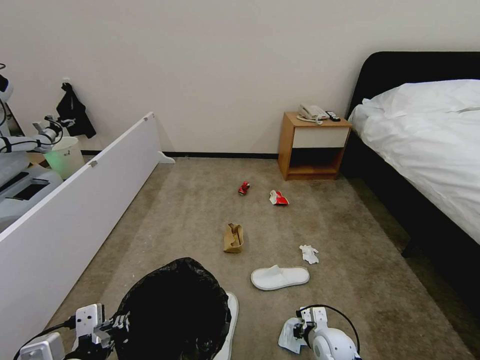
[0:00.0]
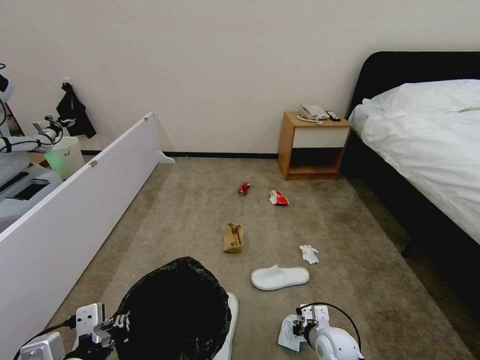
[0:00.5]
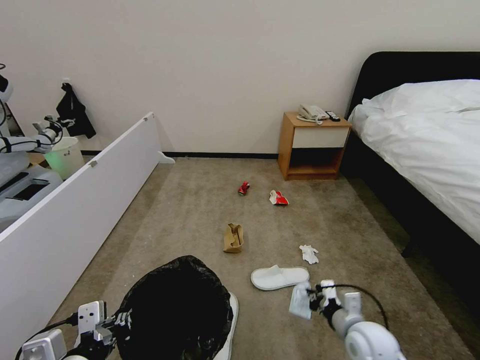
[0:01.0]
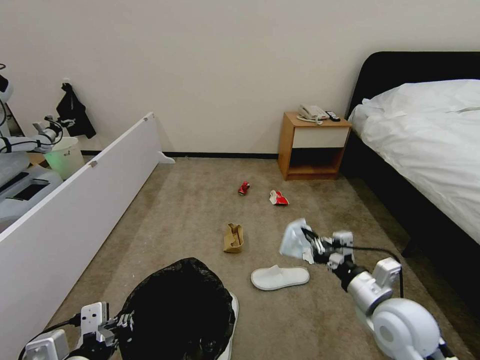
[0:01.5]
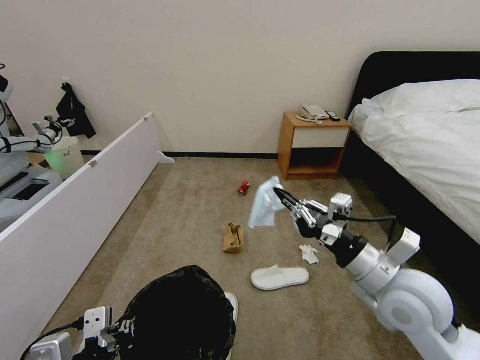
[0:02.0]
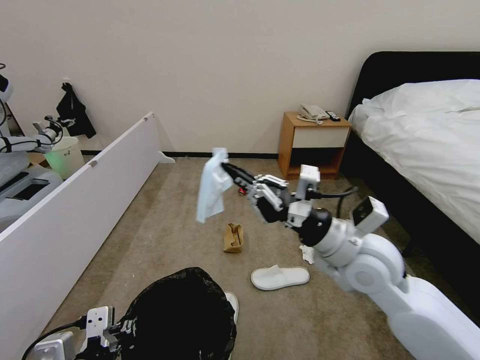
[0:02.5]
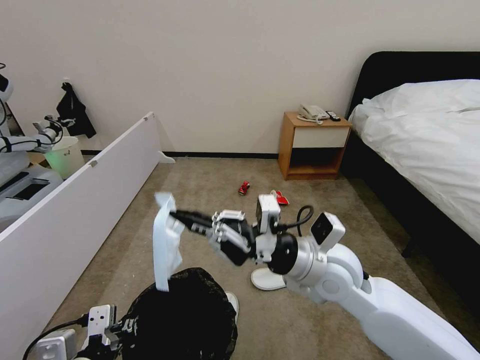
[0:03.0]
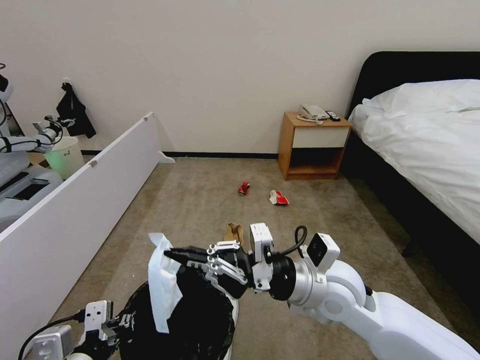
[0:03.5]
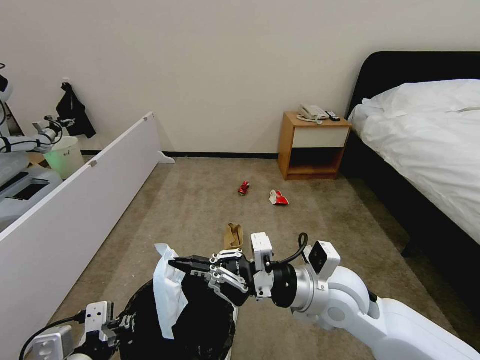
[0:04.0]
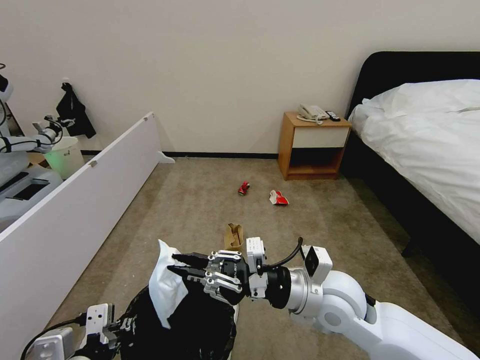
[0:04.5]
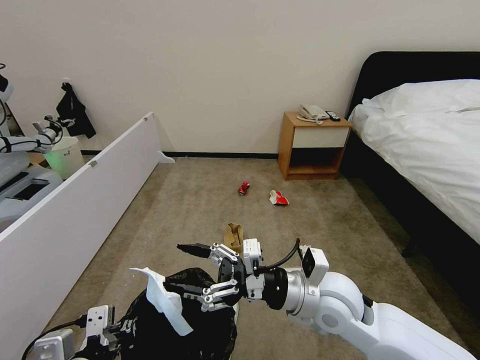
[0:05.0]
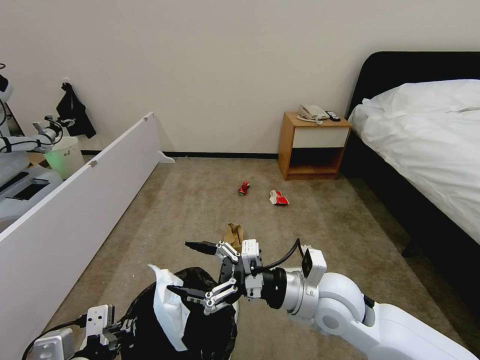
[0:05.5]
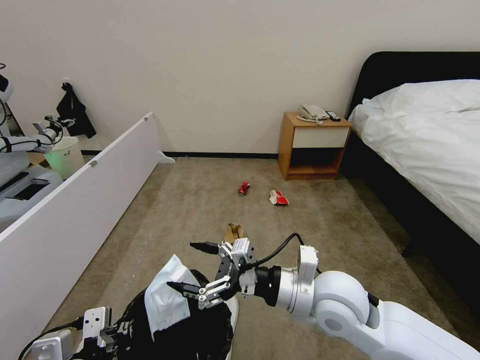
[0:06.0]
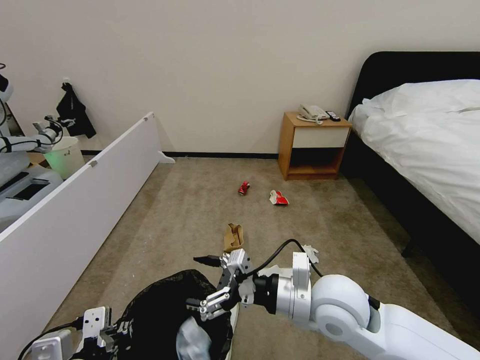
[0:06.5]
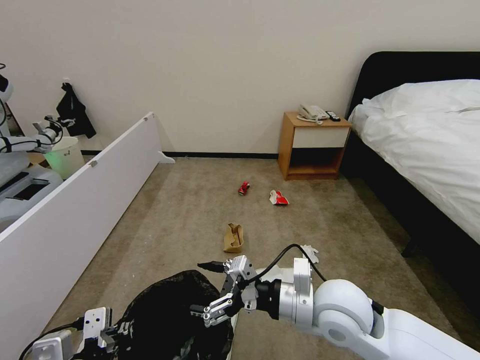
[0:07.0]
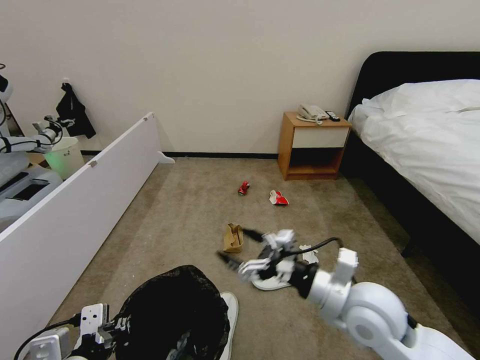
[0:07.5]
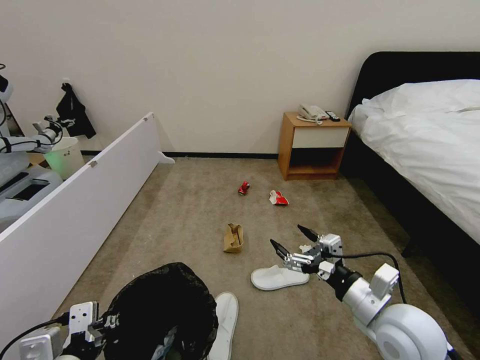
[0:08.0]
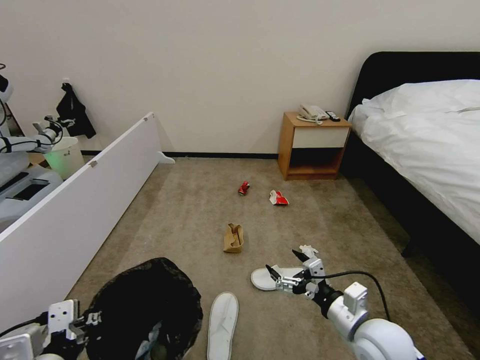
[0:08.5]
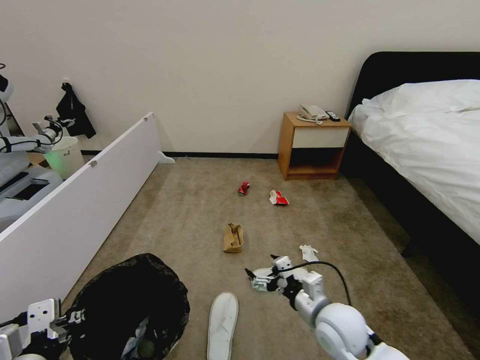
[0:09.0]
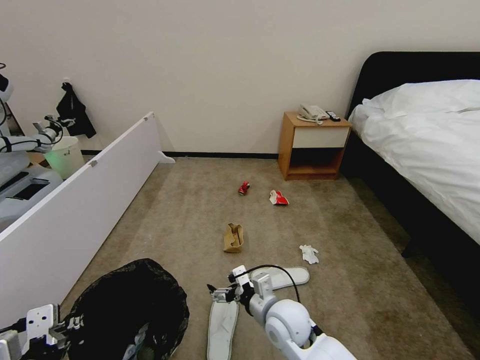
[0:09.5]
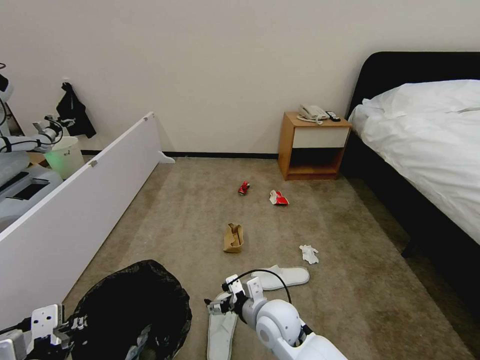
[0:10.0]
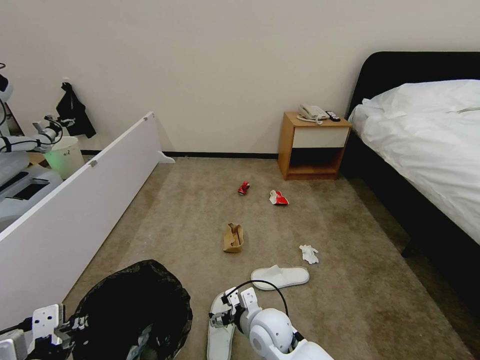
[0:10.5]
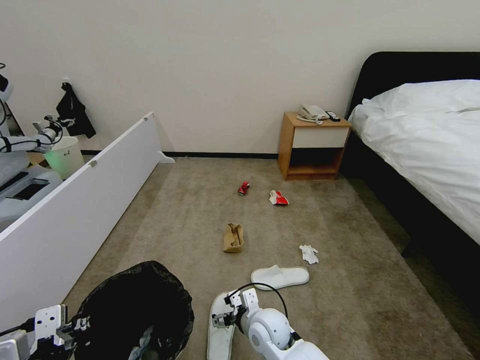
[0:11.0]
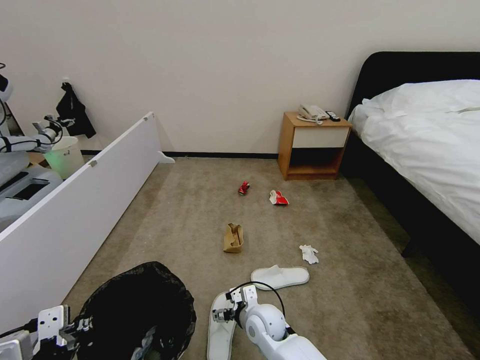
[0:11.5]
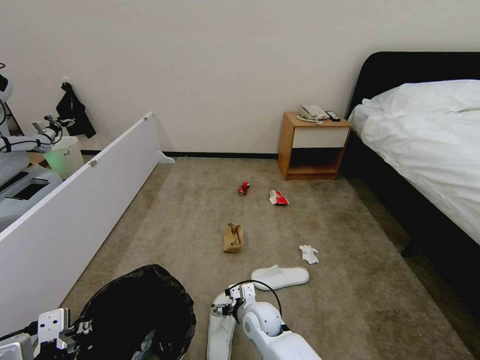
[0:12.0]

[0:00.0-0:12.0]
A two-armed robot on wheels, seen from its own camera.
Task of the whole recording: Pick up the trash bin, then pick up the garbage from the floor and place it into the trash bin.
0:00.0 to 0:02.0: The right gripper travels upward by about 35 cm.
0:02.0 to 0:04.0: The right gripper travels to the left by approximately 10 cm.
0:04.0 to 0:06.0: The right gripper opens up.
0:06.0 to 0:08.0: The right gripper goes approximately 10 cm to the right.
0:08.0 to 0:10.0: The right gripper moves to the left and downward, about 25 cm.
0:10.0 to 0:12.0: The right gripper heads downward, covering roughly 10 cm.

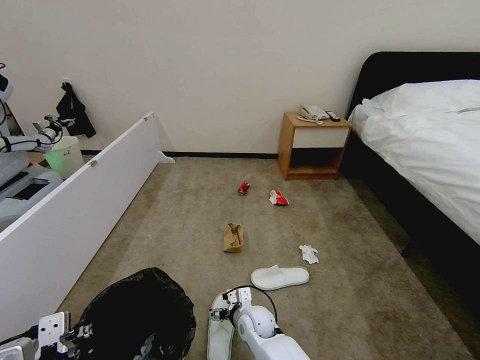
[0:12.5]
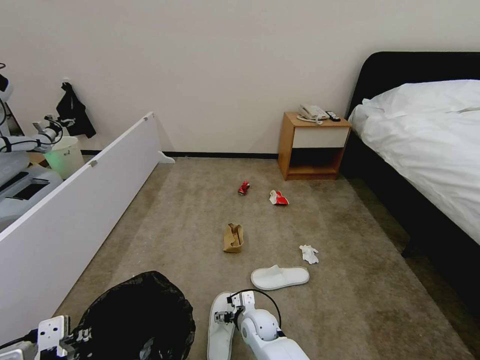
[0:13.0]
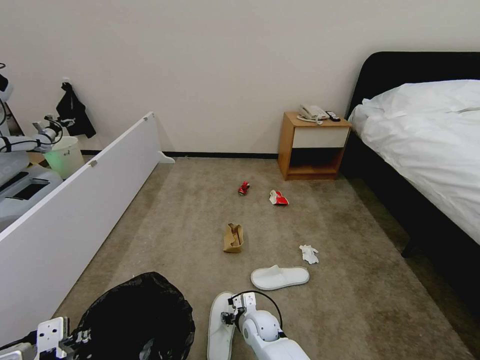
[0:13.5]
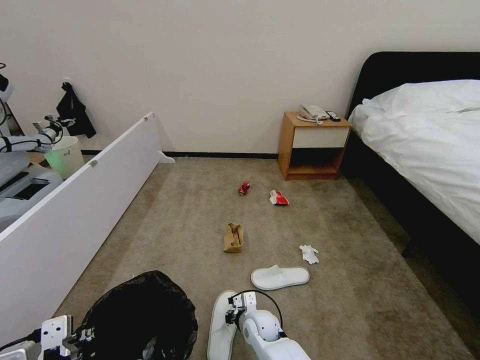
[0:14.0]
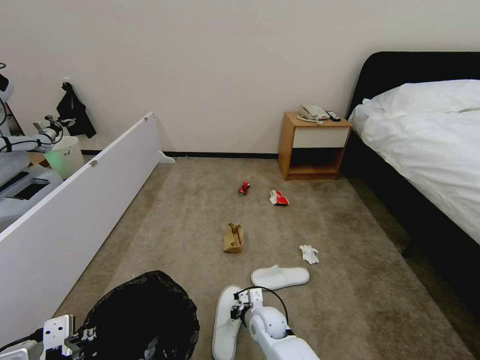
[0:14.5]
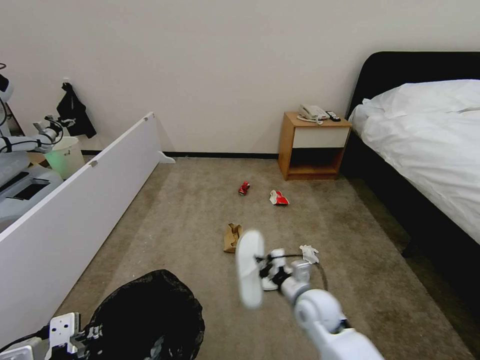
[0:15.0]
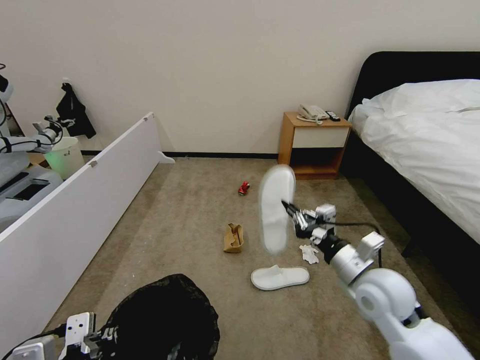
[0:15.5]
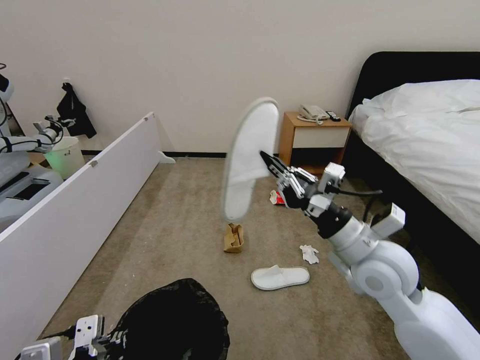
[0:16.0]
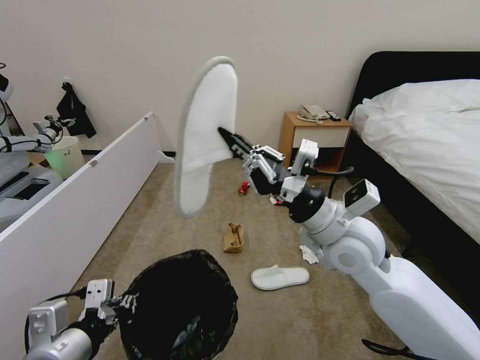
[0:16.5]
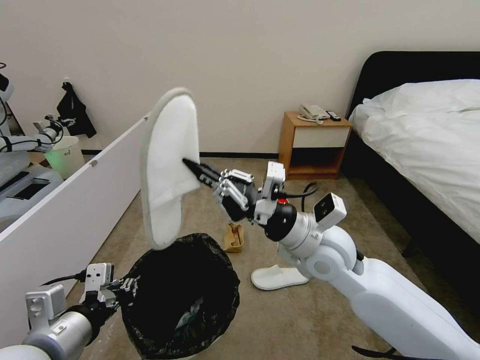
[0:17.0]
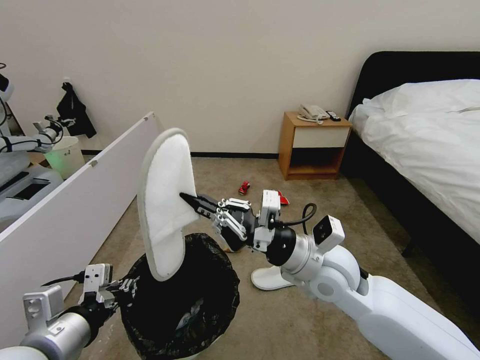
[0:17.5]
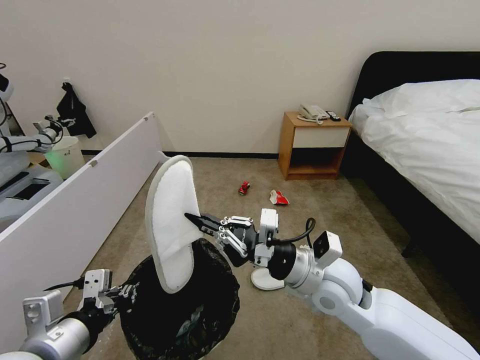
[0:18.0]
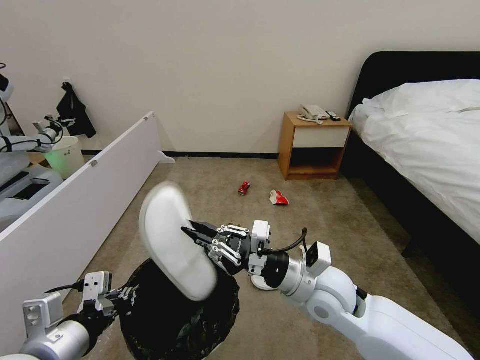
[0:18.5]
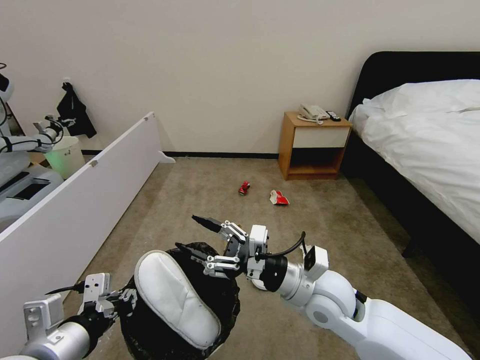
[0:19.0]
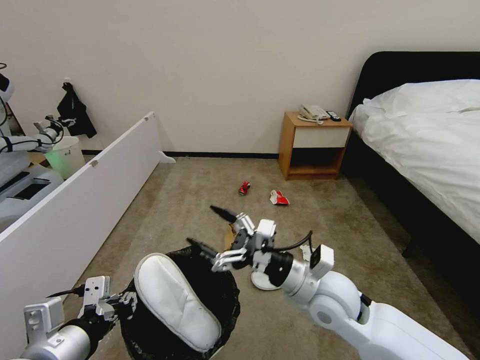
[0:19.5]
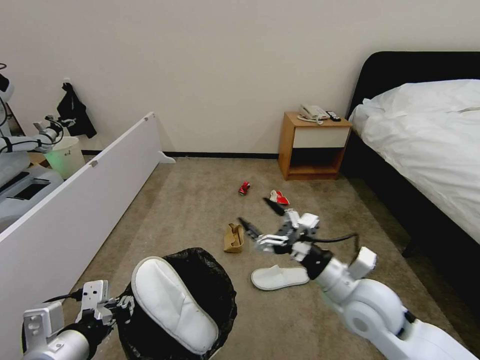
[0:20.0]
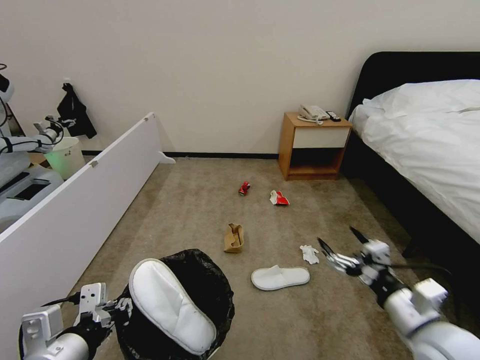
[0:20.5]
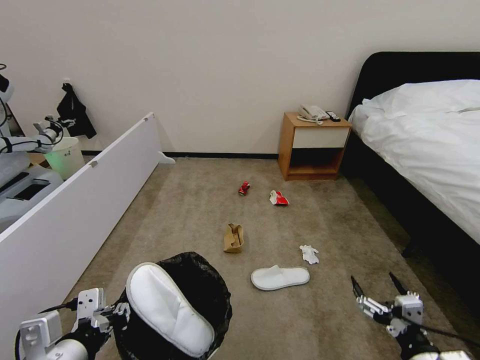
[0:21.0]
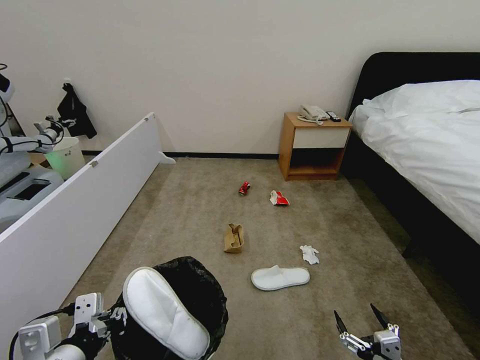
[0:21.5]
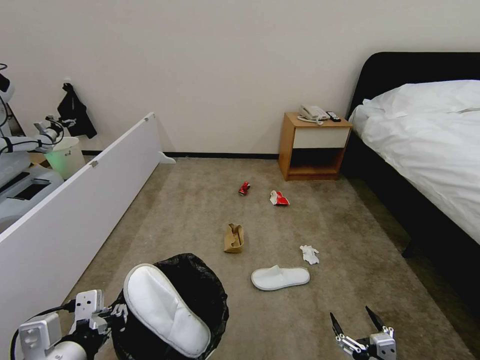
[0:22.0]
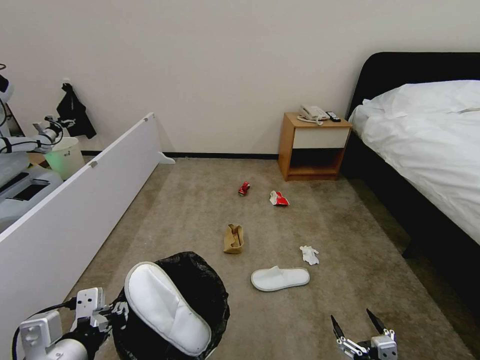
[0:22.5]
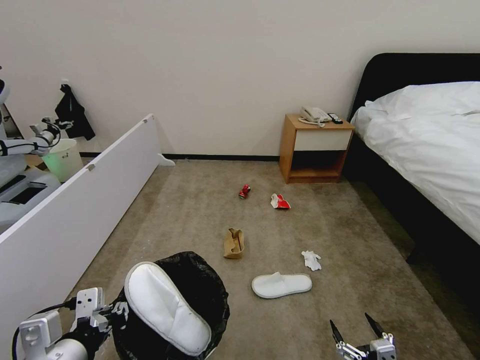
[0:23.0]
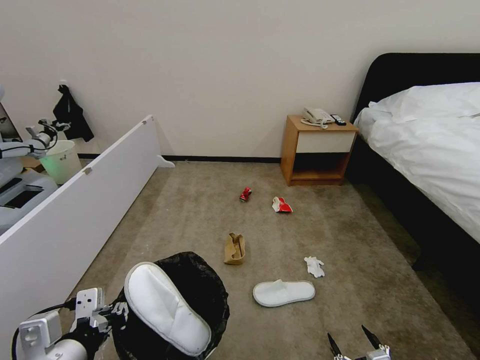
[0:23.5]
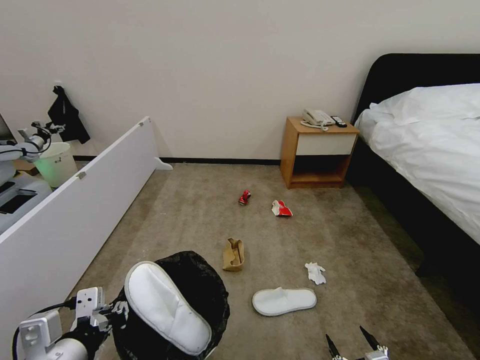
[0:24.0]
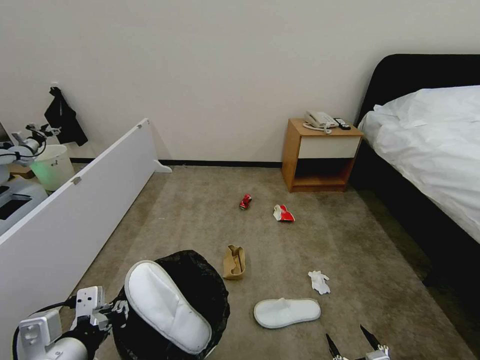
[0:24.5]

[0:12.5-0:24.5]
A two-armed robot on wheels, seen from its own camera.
Task of the whole recording: Pick up the trash bin, then pick up the garbage from the floor and place it into the trash bin.
0:12.5 to 0:14.5: The right gripper closes up.
0:14.5 to 0:16.5: The left gripper shifts by roughly 5 cm. The right gripper shifts some 35 cm upward.
0:16.5 to 0:18.5: The right gripper shifts approximately 10 cm downward.
0:18.5 to 0:20.5: The right gripper moves to the right and backward, some 20 cm, and opens.
0:20.5 to 0:22.5: The right gripper heads downward and backward, covering some 20 cm.
0:22.5 to 0:24.5: There are only small adjustments of the grippers.

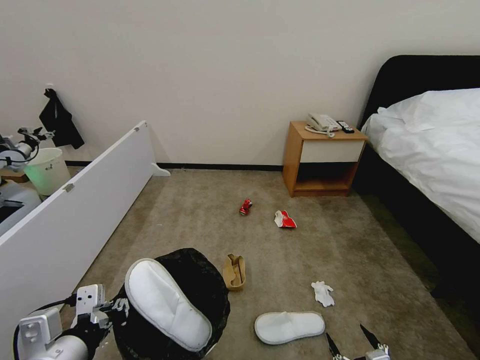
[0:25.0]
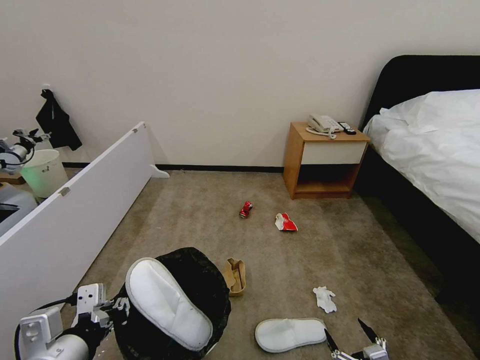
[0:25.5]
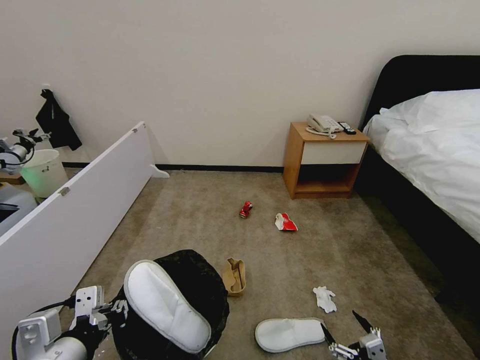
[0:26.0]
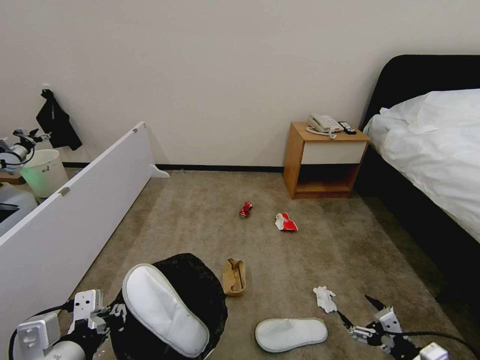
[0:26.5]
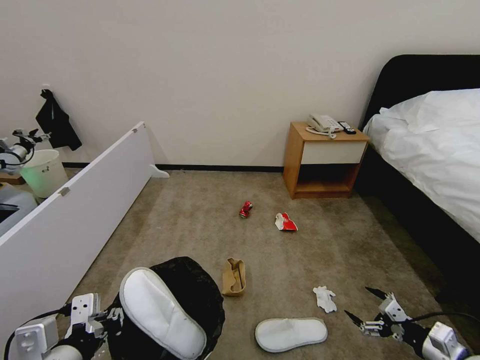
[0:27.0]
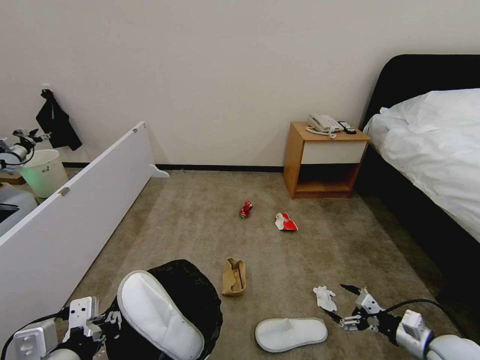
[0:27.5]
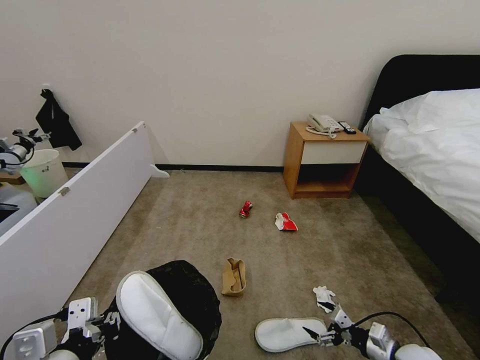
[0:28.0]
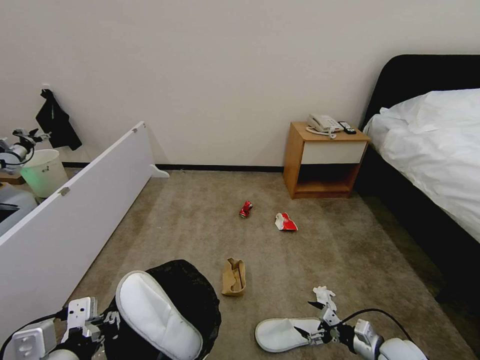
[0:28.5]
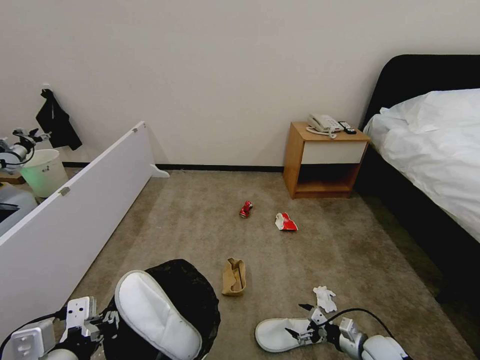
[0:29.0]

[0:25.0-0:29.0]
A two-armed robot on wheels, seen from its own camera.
Task of the whole recording: Pick up the trash bin, then pick up the garbage from the floor and place it into the trash bin.
0:25.0 to 0:27.0: The right gripper is displaced to the right, forward and upward by about 20 cm.
0:27.0 to 0:29.0: The right gripper shifts approximately 20 cm downward, to the left and forward.
